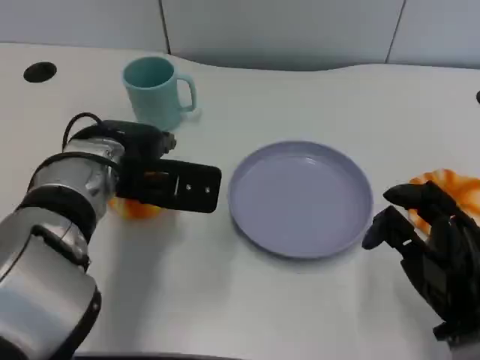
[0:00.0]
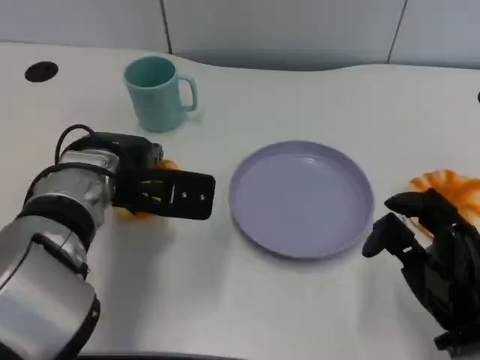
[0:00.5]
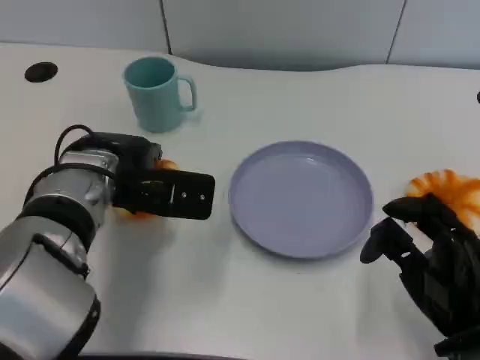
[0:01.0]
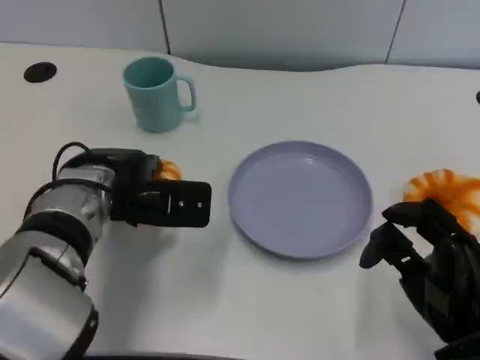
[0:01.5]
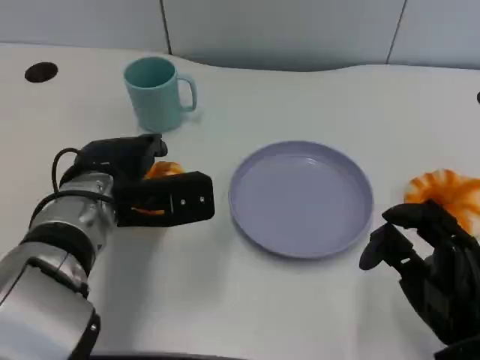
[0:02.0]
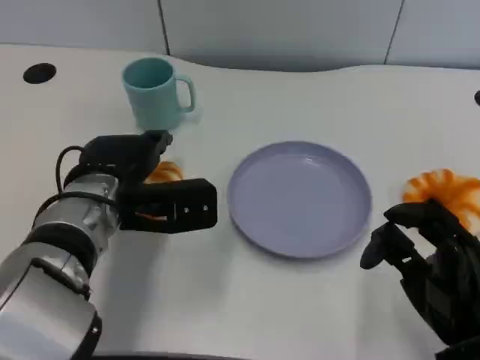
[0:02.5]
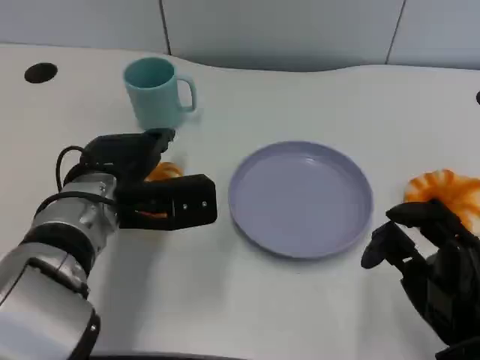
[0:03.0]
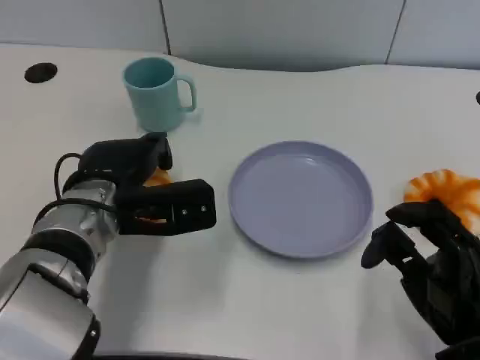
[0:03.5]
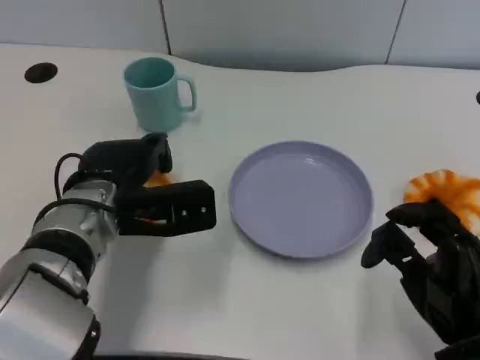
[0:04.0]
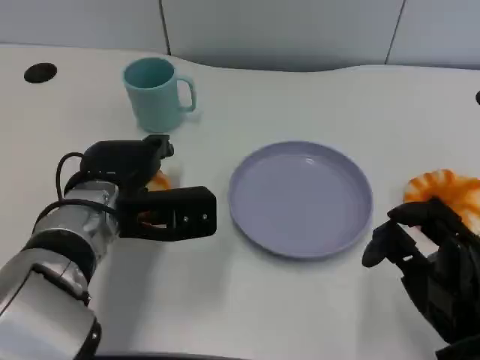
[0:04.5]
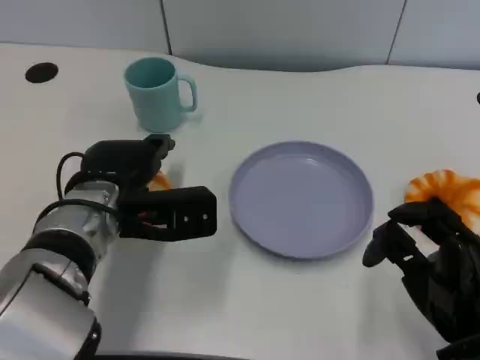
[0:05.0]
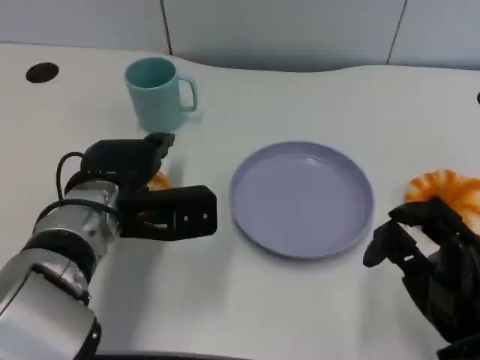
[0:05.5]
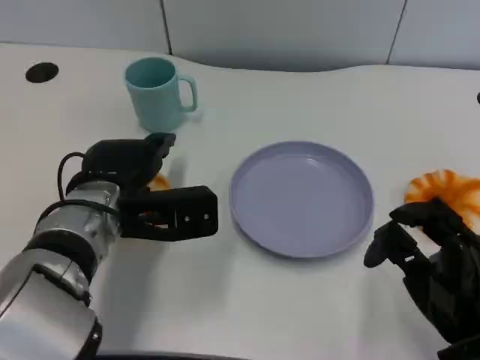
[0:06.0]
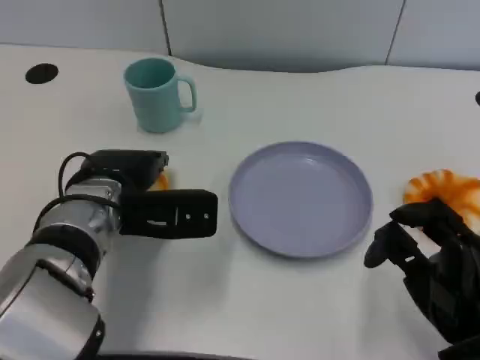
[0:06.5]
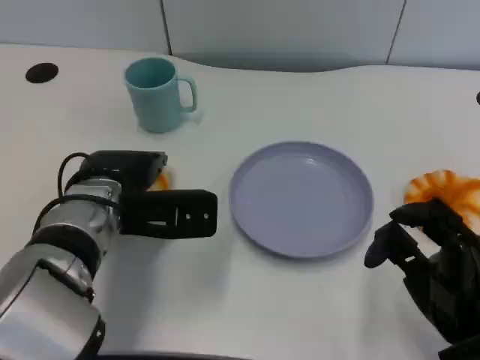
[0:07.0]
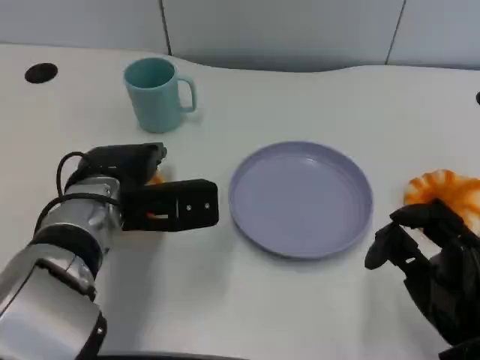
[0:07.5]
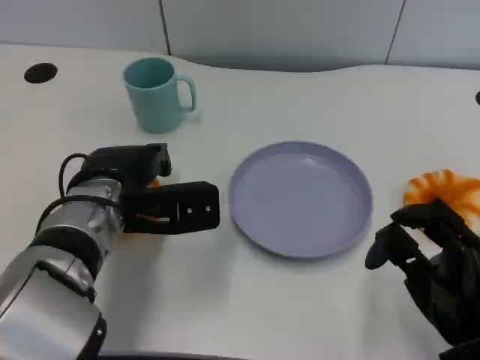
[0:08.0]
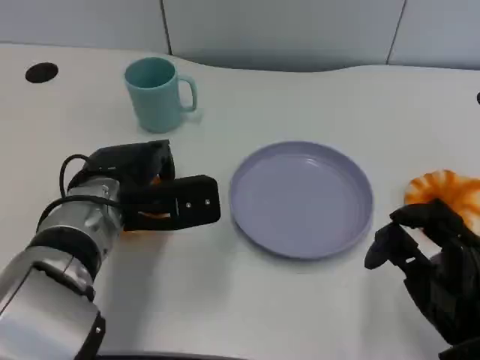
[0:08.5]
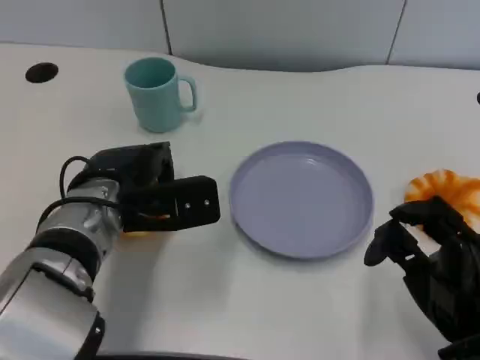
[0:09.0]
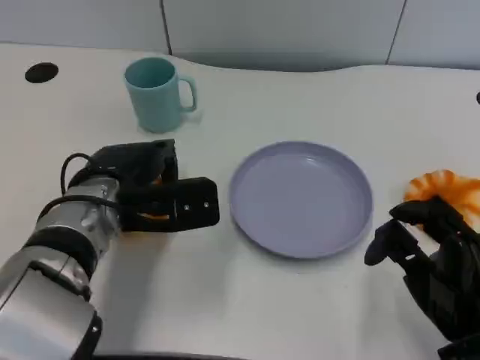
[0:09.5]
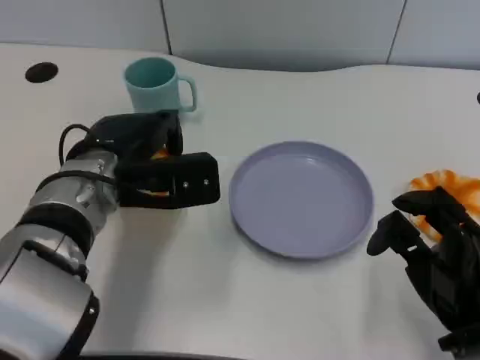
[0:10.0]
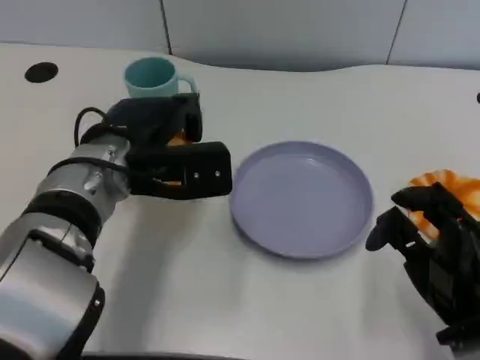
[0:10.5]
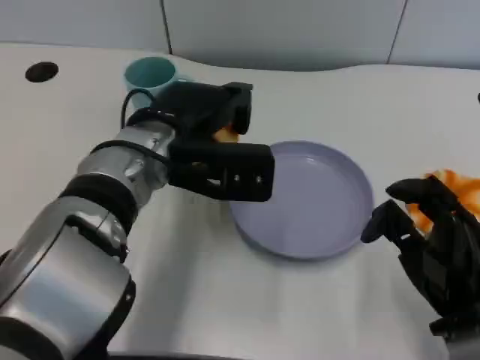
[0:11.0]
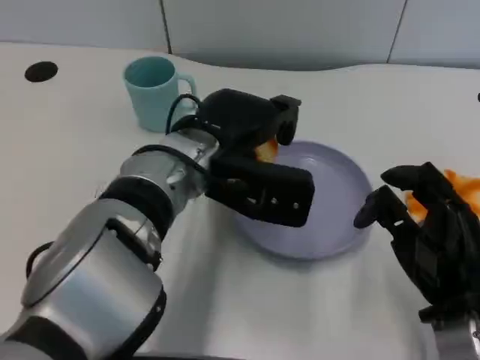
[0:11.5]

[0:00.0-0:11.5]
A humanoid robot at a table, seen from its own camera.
Task of the whole recording: Grasp the bread from the table and place it into the plate.
0.0 to 2.0 s: The hands move only a little.
2.0 to 4.0 s: The hands stay close to where they were, moving slightly.
4.0 to 6.0 s: Both hands stay about where they are.
6.0 to 9.5 s: There are only small adjustments of the hands.
9.5 to 11.5 s: The left hand shifts roughly 10 cm to the right.

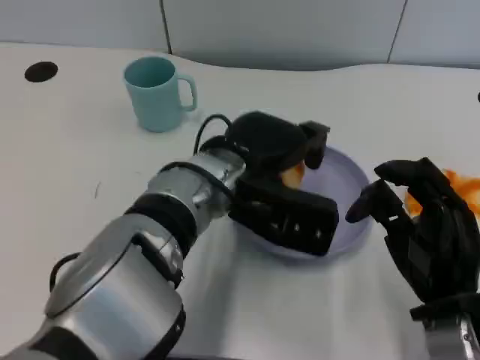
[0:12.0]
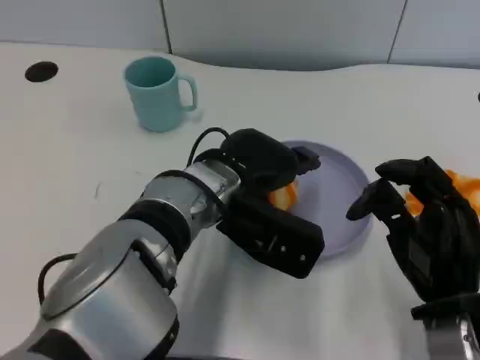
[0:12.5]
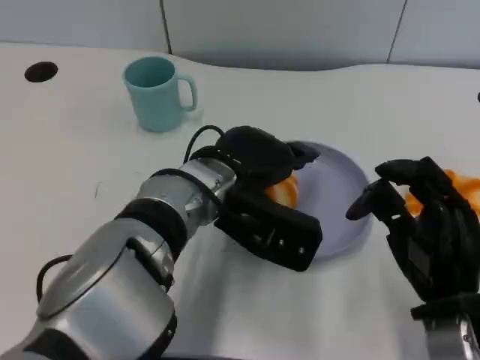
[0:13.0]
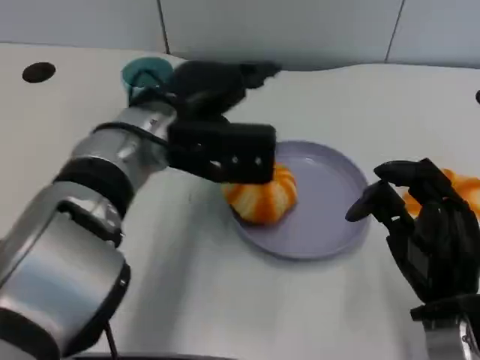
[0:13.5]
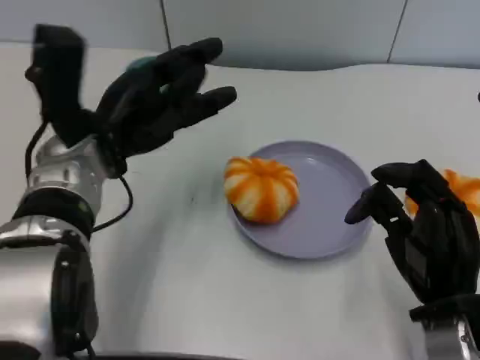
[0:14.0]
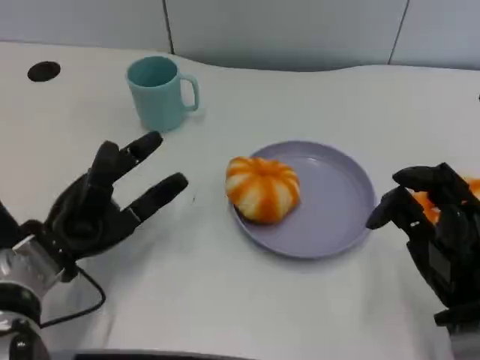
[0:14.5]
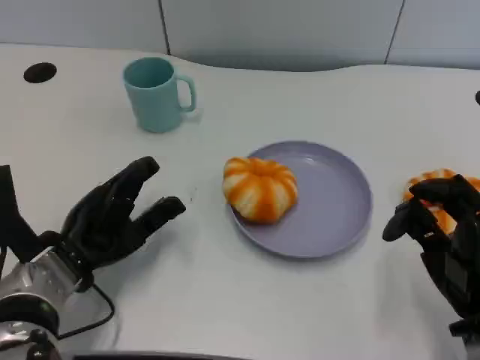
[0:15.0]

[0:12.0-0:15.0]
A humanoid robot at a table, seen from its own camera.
Task of the whole recording: Grasp the bread from the table and place it into the plate.
12.0 to 13.5 s: The left hand travels to the left by approximately 5 cm.
13.5 to 15.0 s: The left hand heads downward, to the left and backward, covering some 20 cm.

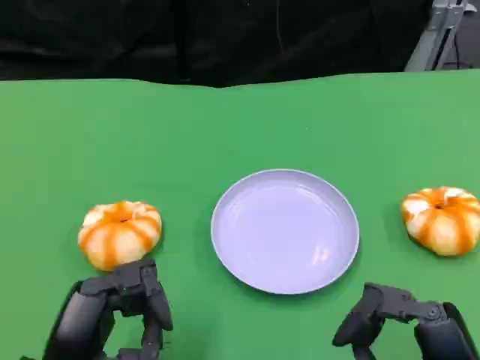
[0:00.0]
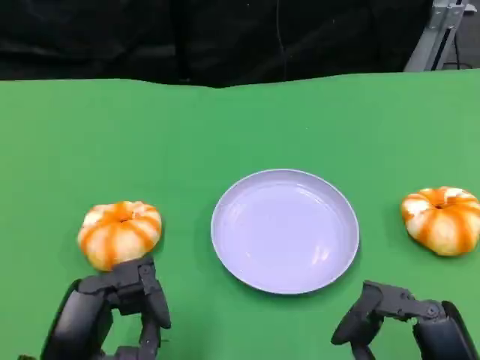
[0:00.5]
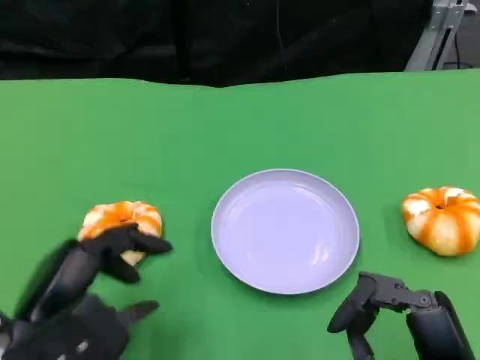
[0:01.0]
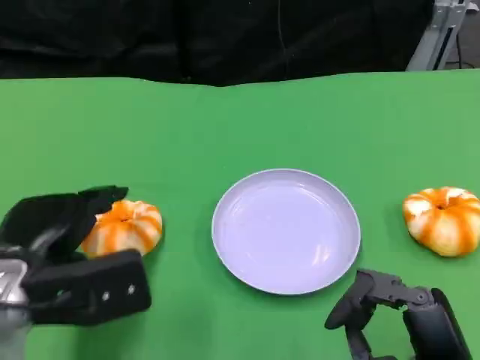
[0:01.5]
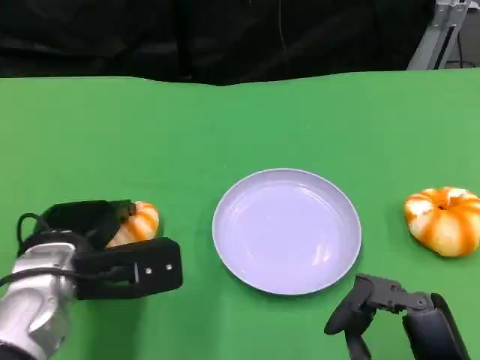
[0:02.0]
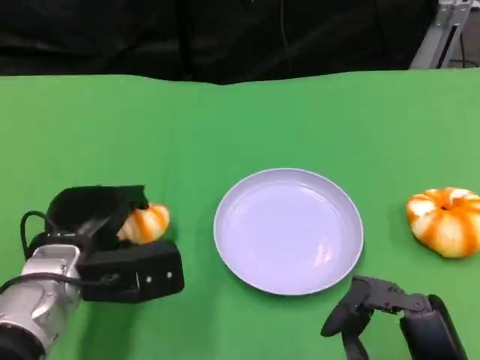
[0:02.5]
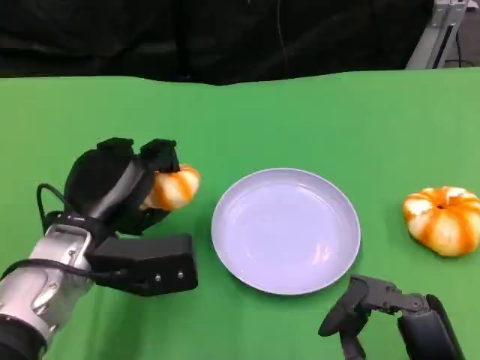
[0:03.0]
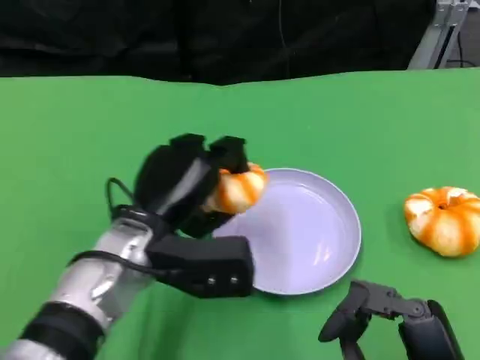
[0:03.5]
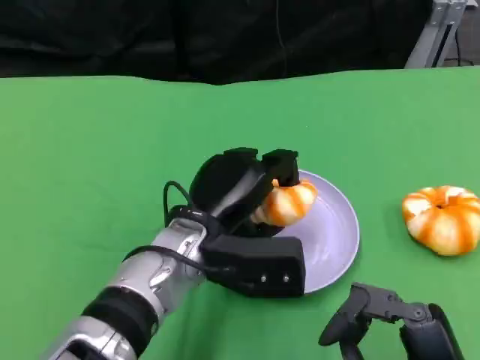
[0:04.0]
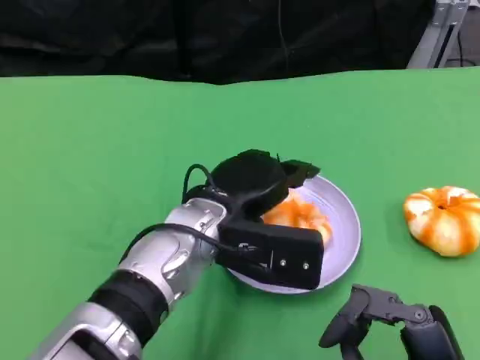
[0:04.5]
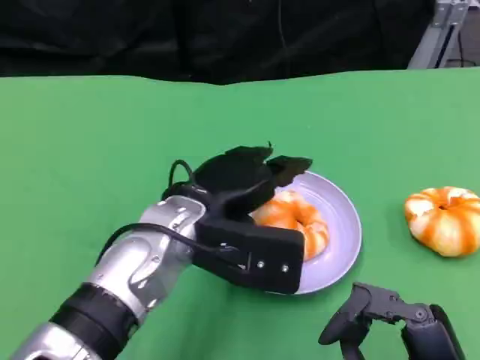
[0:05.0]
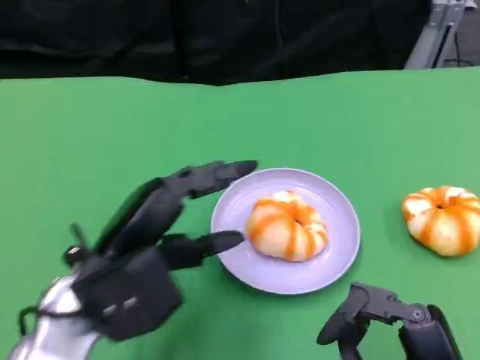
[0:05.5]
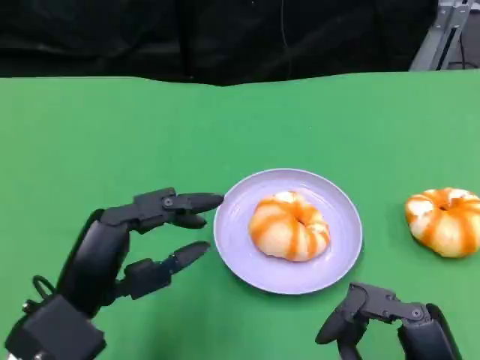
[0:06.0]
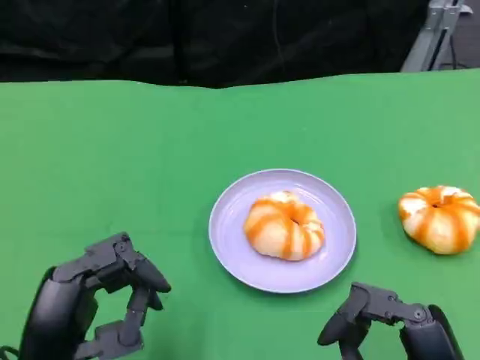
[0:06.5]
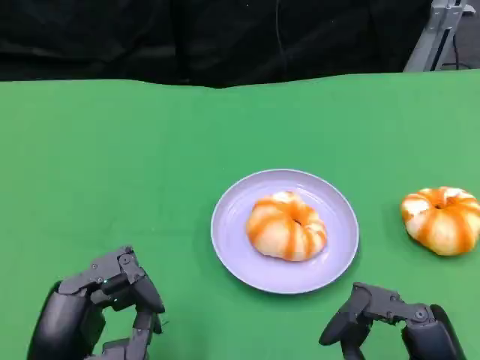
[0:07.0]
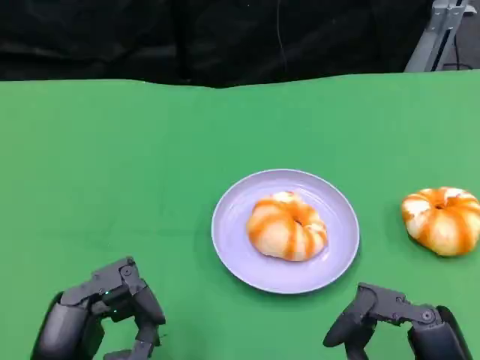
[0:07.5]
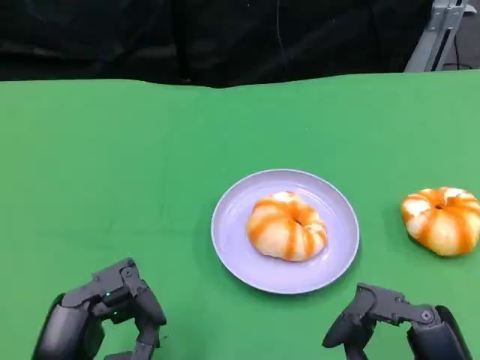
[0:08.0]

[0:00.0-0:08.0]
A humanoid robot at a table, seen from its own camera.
Task of the whole recording: Grasp the bread from the table and place it into the plate.
0.0 to 2.0 s: The left hand goes some 15 cm forward.
2.0 to 4.0 s: The left hand is displaced to the right by about 15 cm.
4.0 to 6.0 s: The left hand heads to the left and backward, covering approximately 15 cm.
6.0 to 8.0 s: The left hand travels backward by about 5 cm.

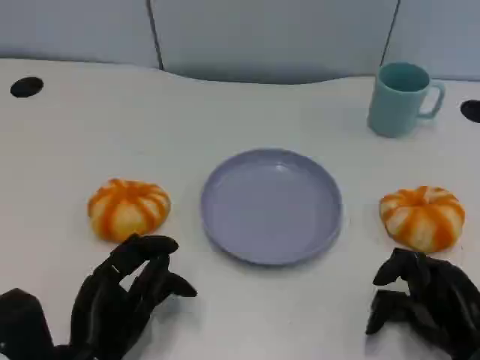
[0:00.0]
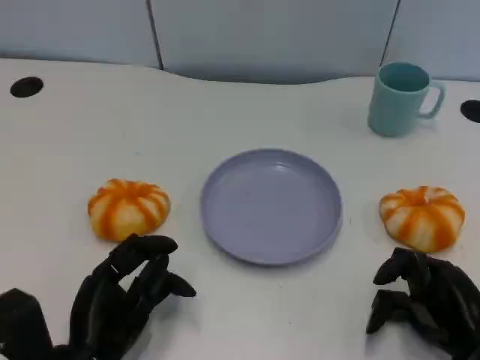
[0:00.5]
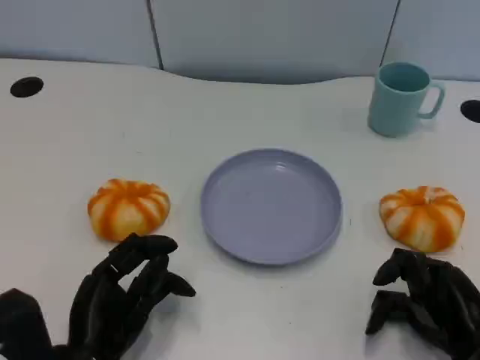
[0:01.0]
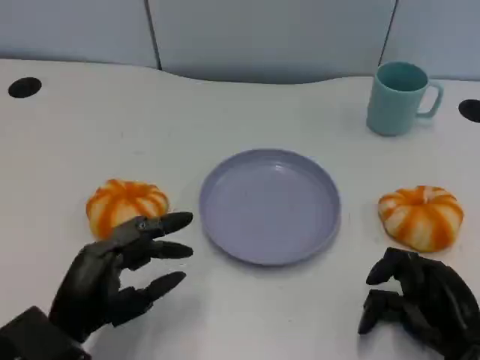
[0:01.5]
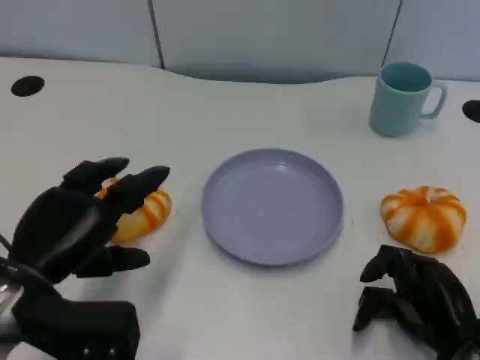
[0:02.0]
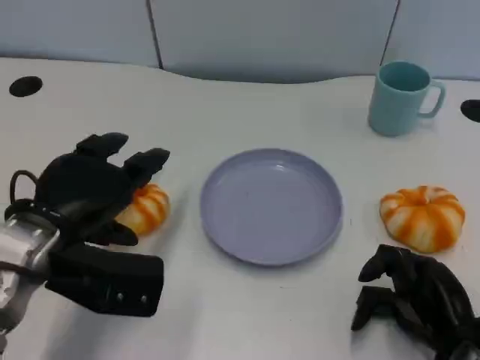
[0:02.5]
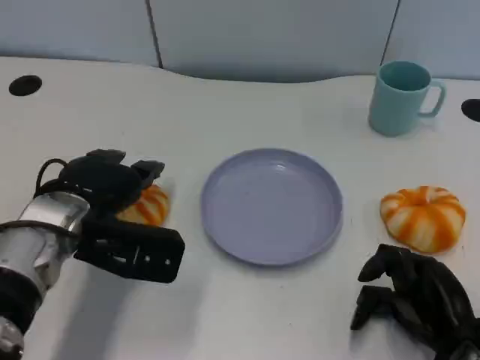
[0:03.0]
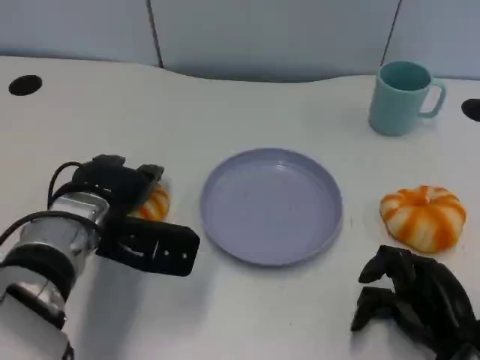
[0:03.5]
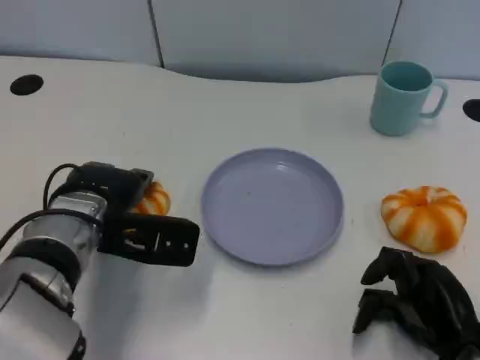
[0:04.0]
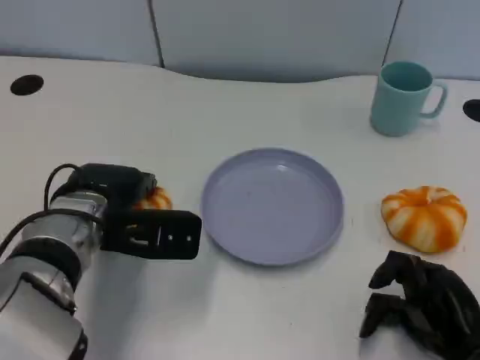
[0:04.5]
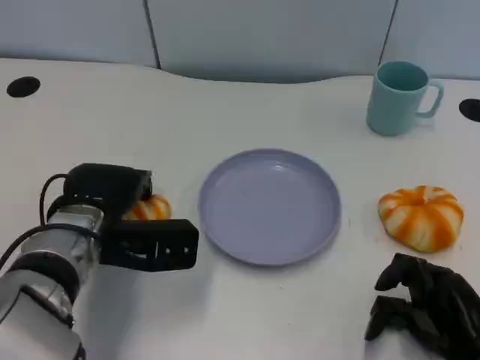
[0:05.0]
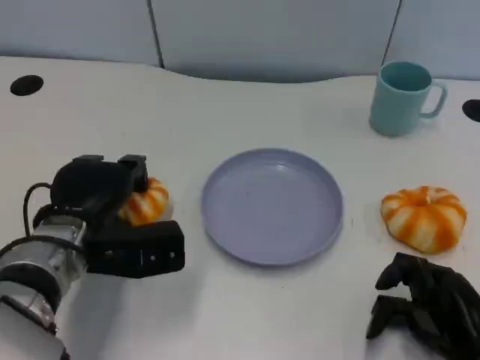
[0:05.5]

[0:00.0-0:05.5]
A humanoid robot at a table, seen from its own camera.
Task of the whole recording: Grasp the bread from the table and place it into the plate.
0.0 to 2.0 s: The left hand moves upward, some 10 cm.
2.0 to 3.5 s: The left hand is displaced forward and to the right by roughly 10 cm.
